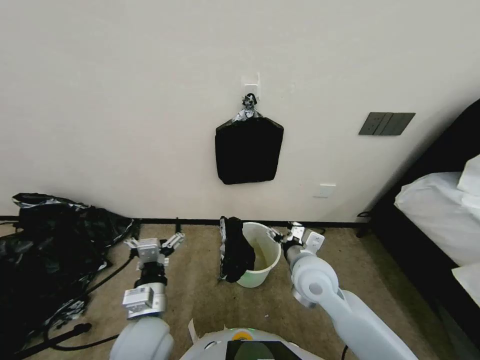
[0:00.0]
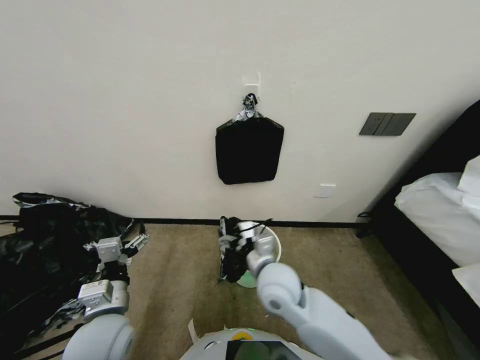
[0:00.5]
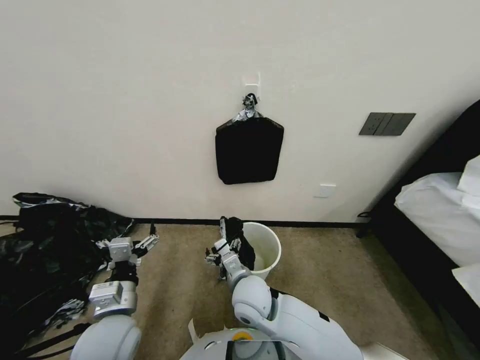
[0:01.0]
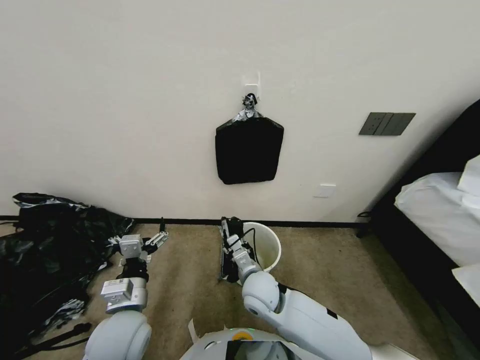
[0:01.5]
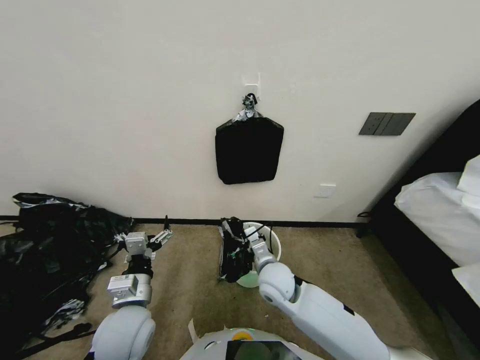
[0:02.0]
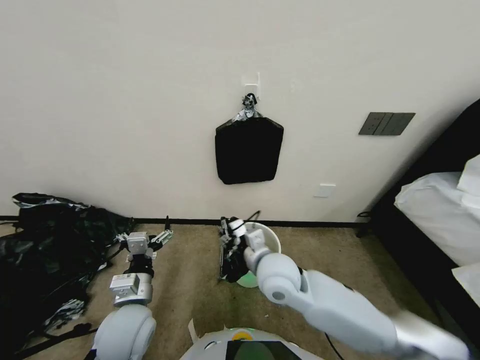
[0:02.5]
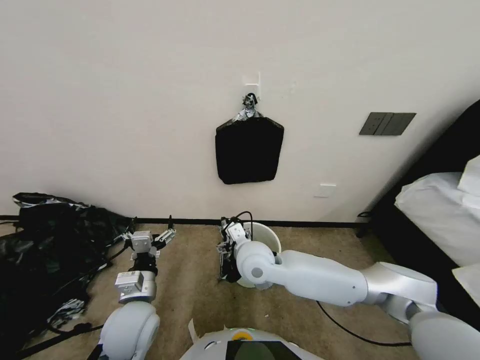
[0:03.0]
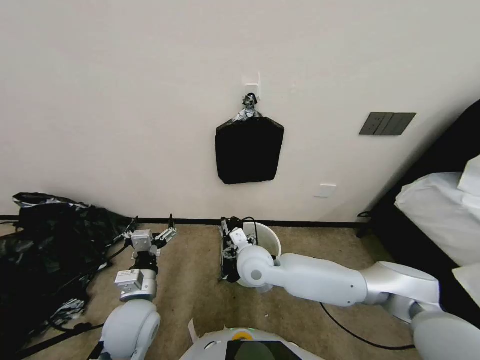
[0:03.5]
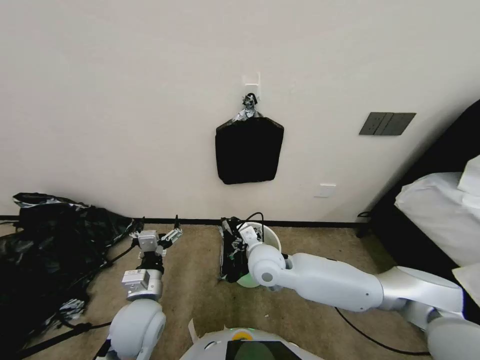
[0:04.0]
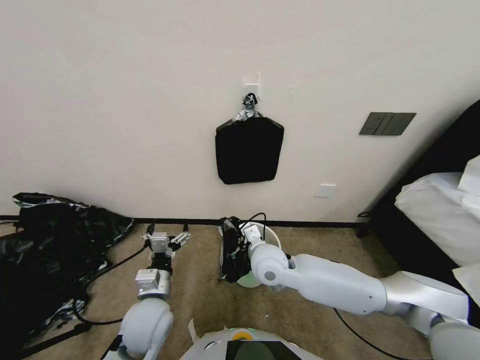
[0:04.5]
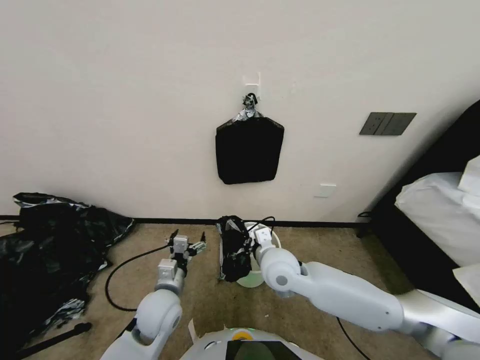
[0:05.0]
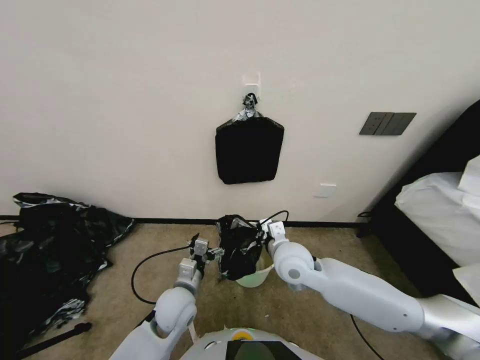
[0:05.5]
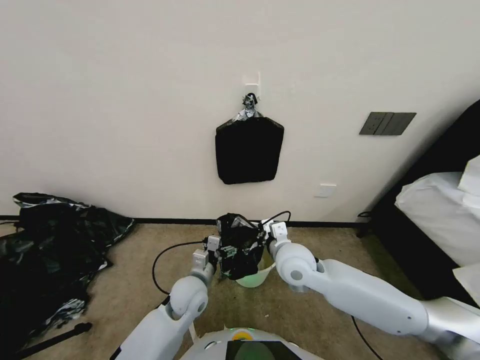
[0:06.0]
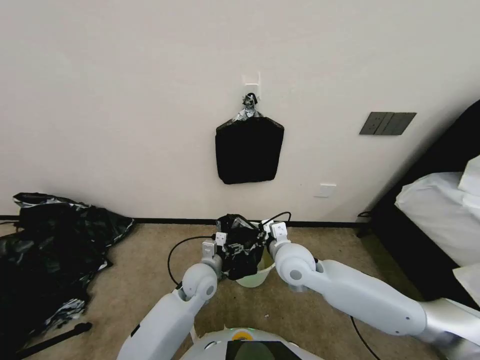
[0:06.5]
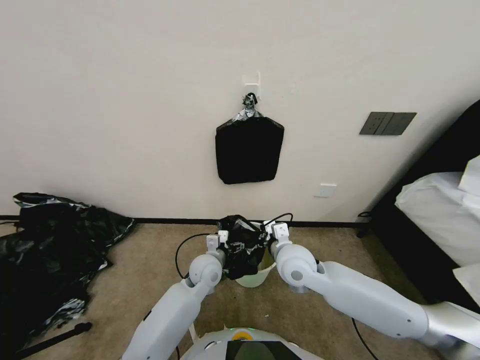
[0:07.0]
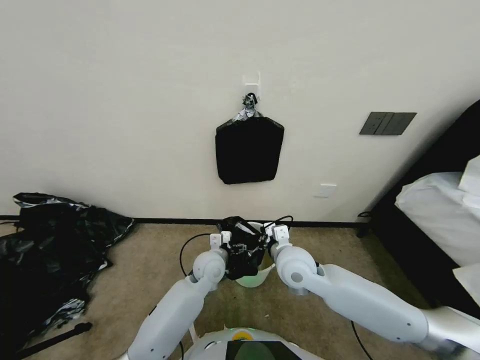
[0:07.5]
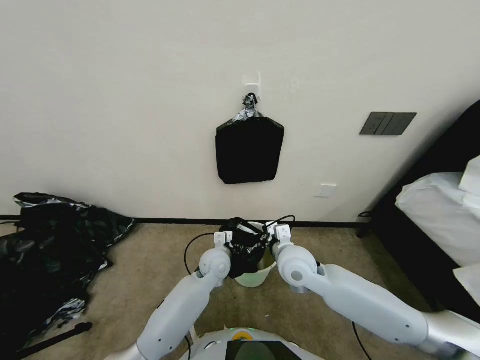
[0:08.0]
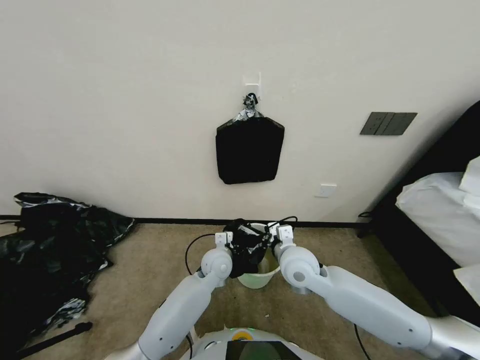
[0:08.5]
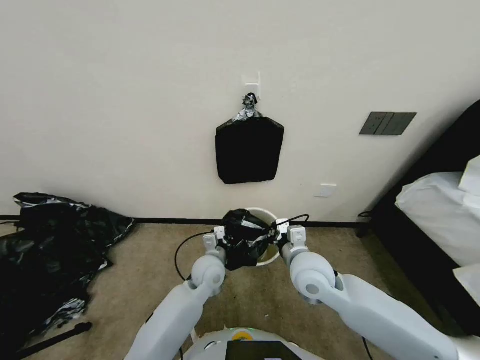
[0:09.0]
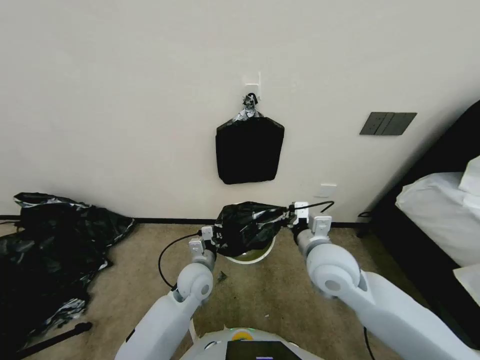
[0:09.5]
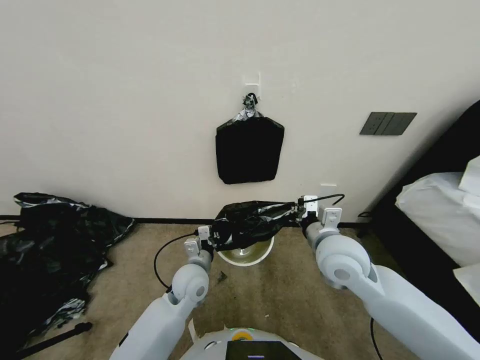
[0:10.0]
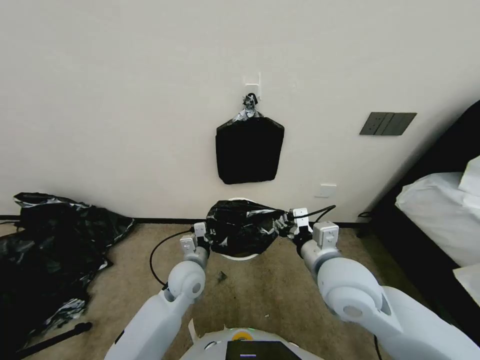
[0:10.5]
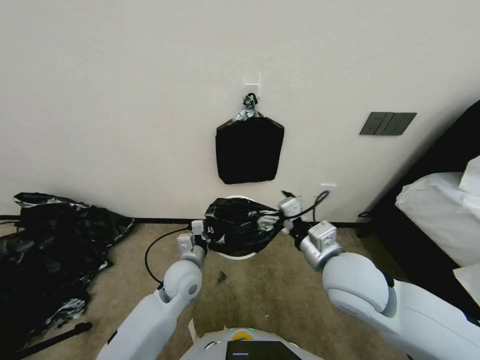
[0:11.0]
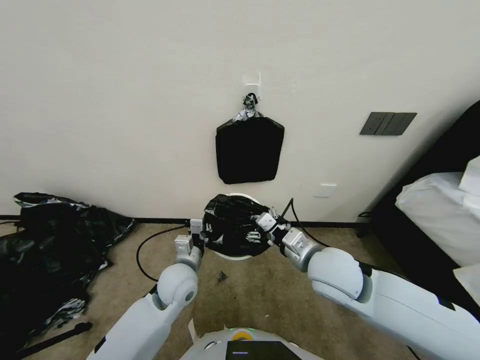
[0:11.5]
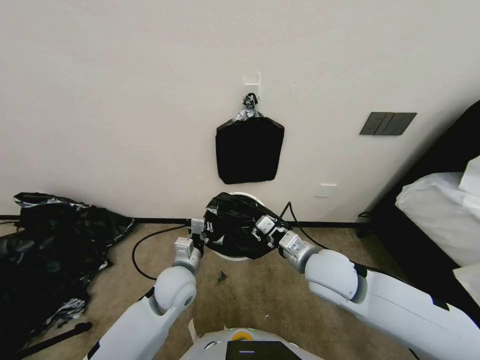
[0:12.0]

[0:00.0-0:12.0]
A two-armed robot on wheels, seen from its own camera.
Task of the whole recording: Place a trash bag onto the trash bin.
0:00.0 to 0:02.0: The right gripper heads to the left and downward, covering some 10 cm, and closes up. Meanwhile the left gripper heads to the left, covering about 5 cm.
0:02.0 to 0:04.0: The right gripper shifts roughly 5 cm upward, and opens.
0:04.0 to 0:06.0: The right gripper travels to the right by about 5 cm, and closes its fingers. Meanwhile the left gripper heads to the right, forward and downward, covering roughly 10 cm.
0:06.0 to 0:08.0: The left gripper heads forward and to the right, covering approximately 10 cm.
0:08.0 to 0:10.0: The right gripper shifts roughly 10 cm upward and to the right. Meanwhile the left gripper shifts about 10 cm backward and to the left, and closes.
0:10.0 to 0:12.0: The right gripper opens.

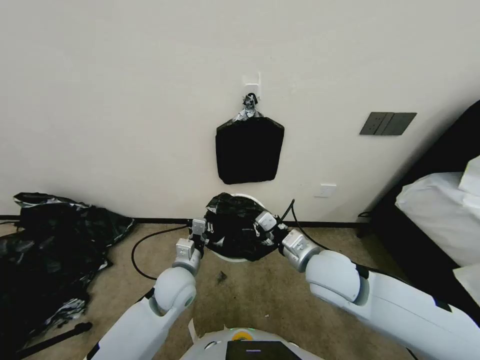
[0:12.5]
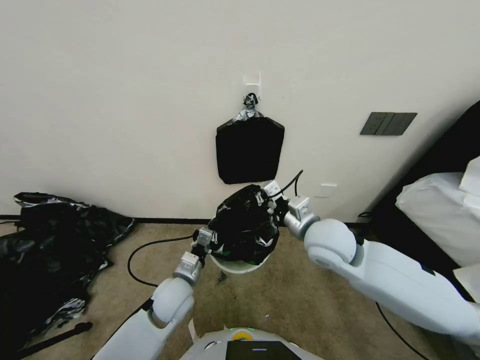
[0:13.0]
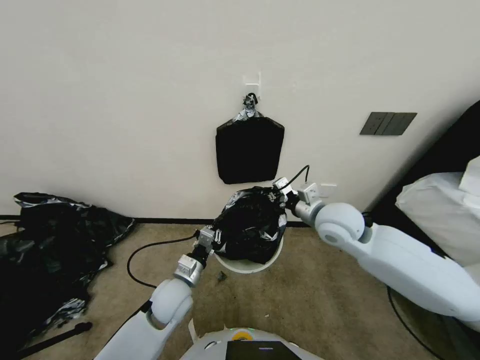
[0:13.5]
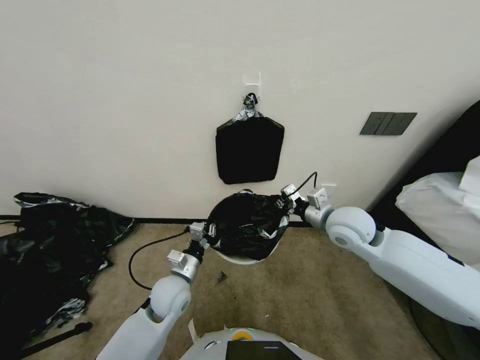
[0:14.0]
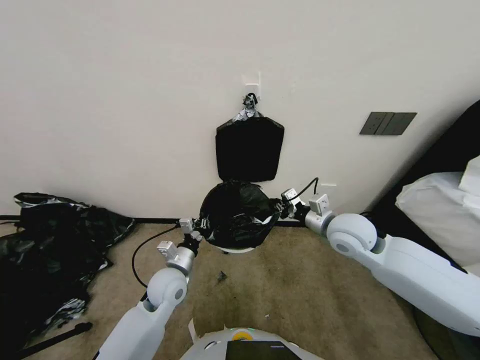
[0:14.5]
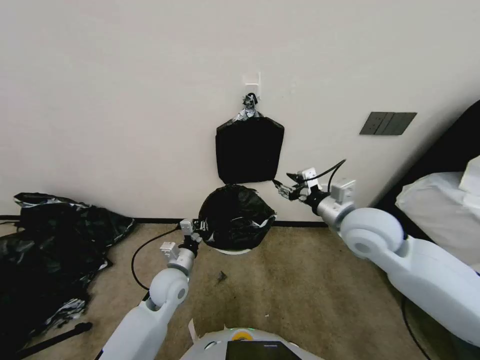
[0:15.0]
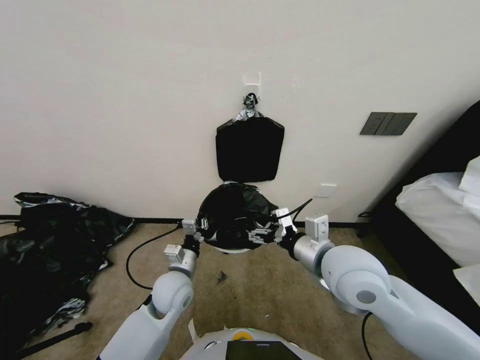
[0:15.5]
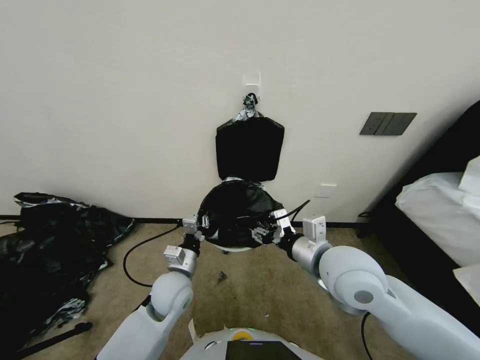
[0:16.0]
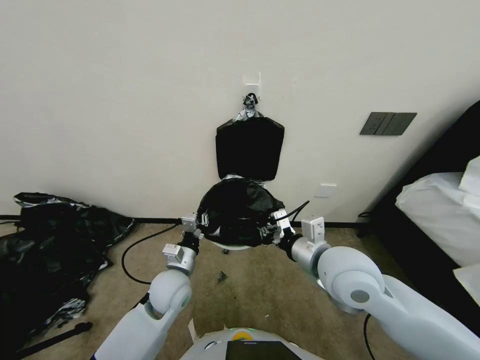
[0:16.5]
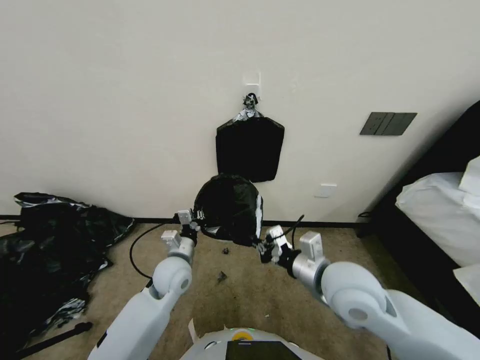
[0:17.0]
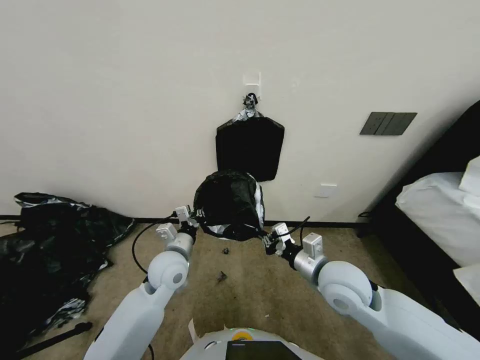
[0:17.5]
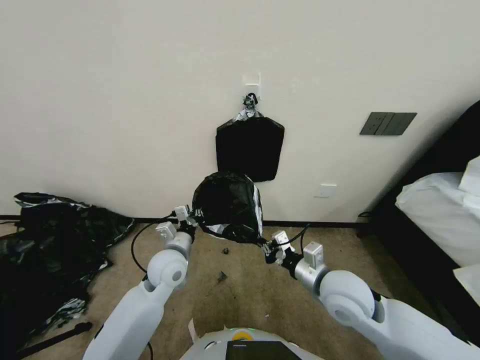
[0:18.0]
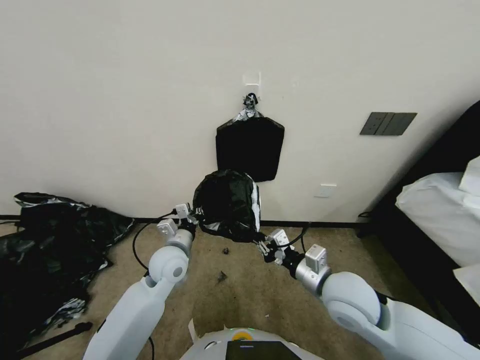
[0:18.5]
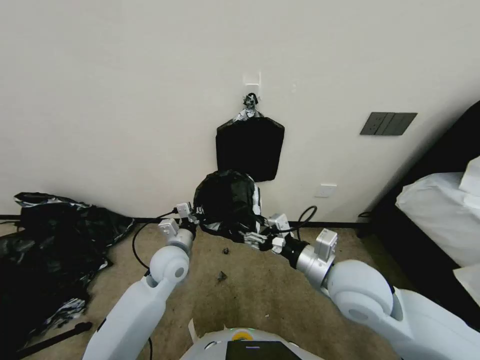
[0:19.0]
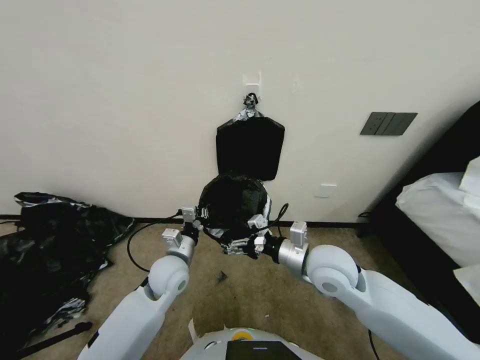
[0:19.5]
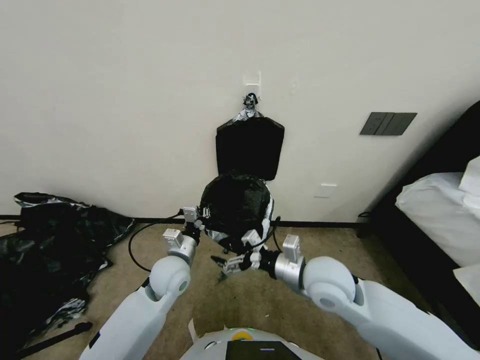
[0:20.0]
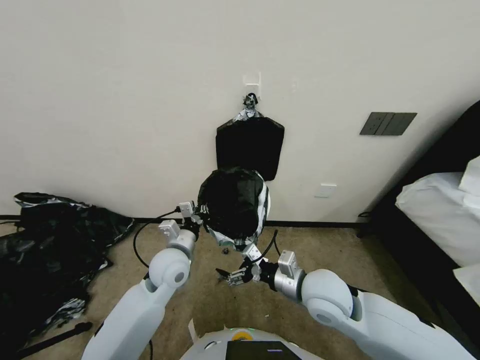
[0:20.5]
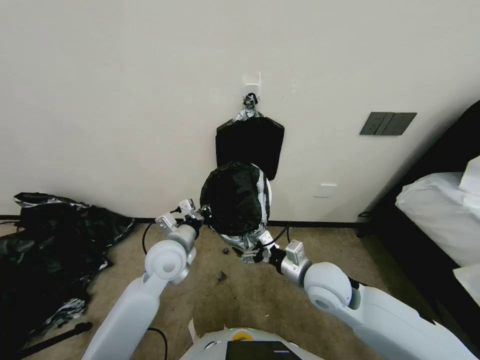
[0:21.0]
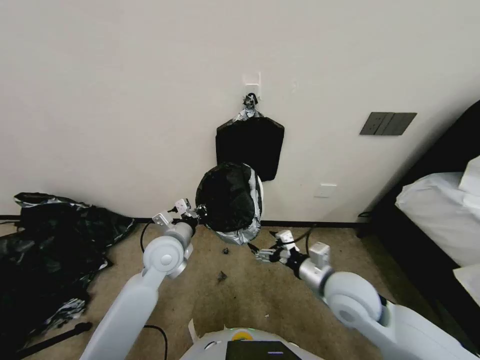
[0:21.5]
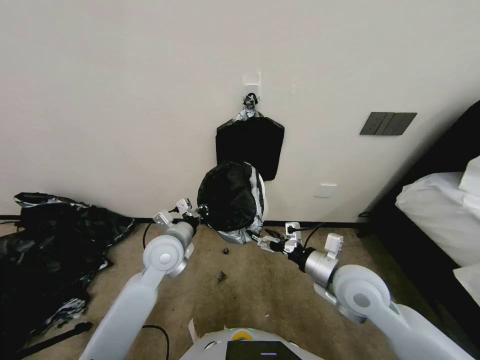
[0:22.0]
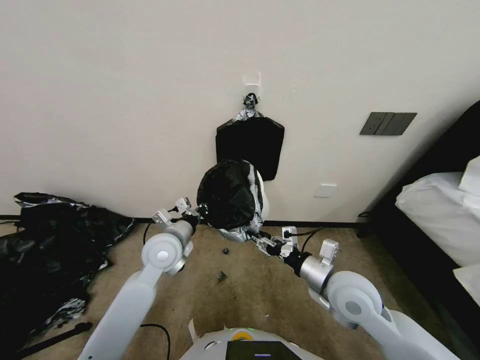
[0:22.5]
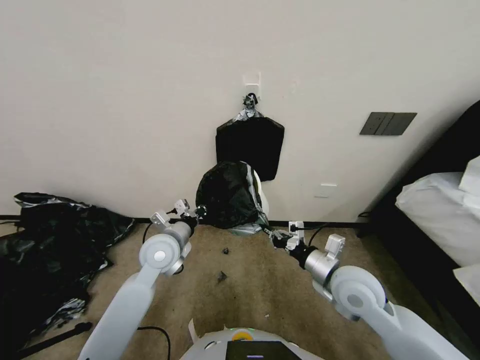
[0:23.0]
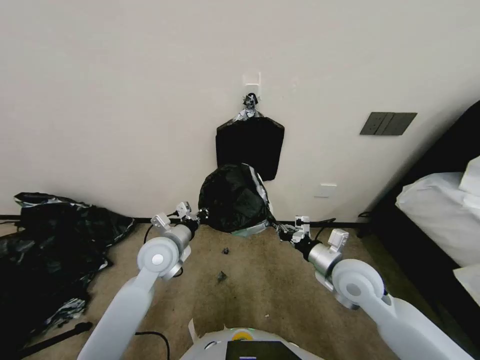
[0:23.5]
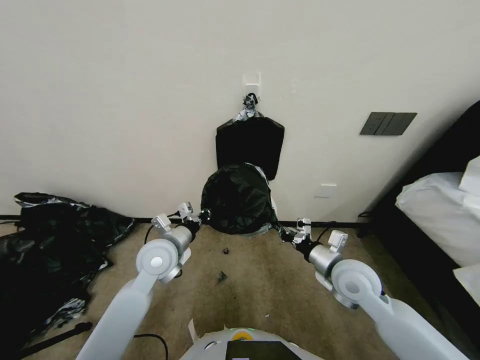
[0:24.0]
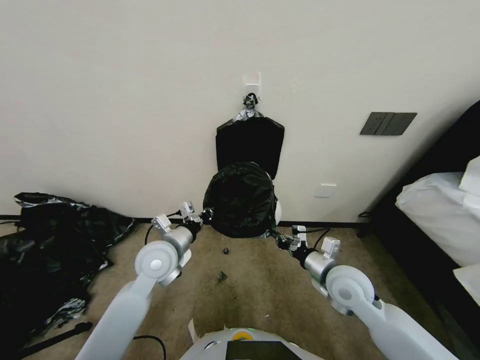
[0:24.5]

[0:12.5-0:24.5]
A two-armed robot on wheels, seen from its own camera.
Task of the whole recording: Place a trash bag onto the trash bin.
0:12.5 to 0:14.5: The right gripper shifts approximately 10 cm forward and to the right.
0:14.5 to 0:16.5: The right gripper heads backward and to the left, covering about 15 cm, and opens and closes again.
0:16.5 to 0:18.5: The right gripper is displaced downward by about 10 cm, while the left gripper goes roughly 5 cm forward.
0:18.5 to 0:20.5: The right gripper opens up.
0:20.5 to 0:22.5: The right gripper is displaced to the right by approximately 5 cm, and closes up.
0:22.5 to 0:24.5: The right gripper moves about 5 cm, and closes up.

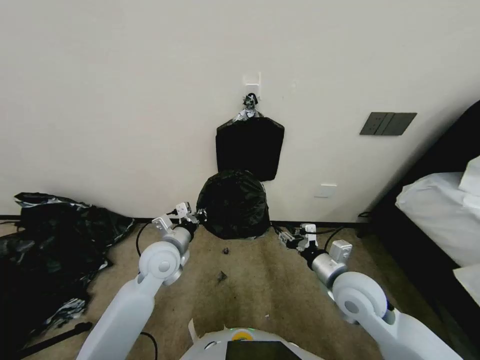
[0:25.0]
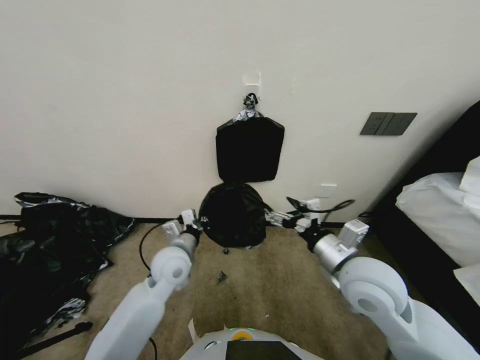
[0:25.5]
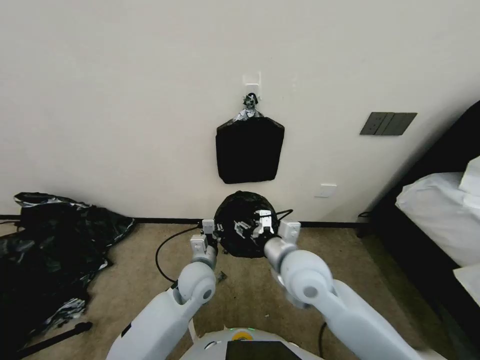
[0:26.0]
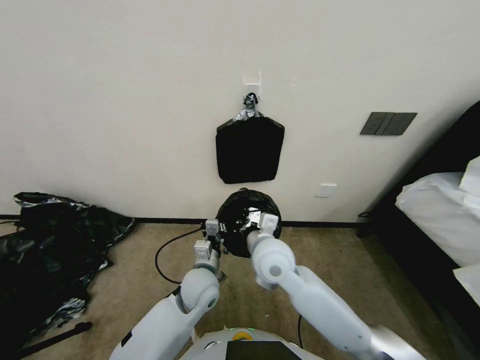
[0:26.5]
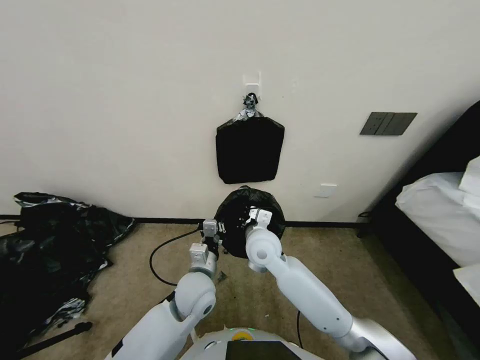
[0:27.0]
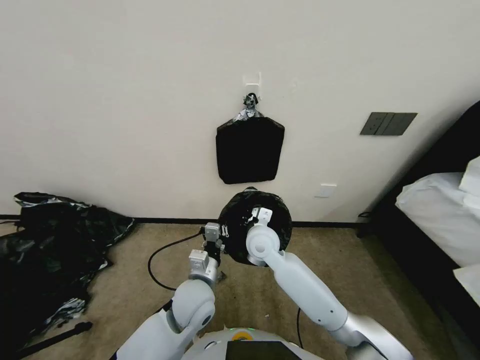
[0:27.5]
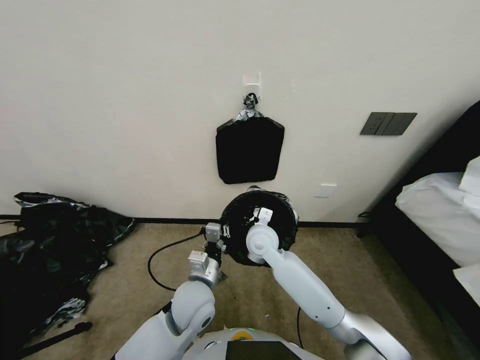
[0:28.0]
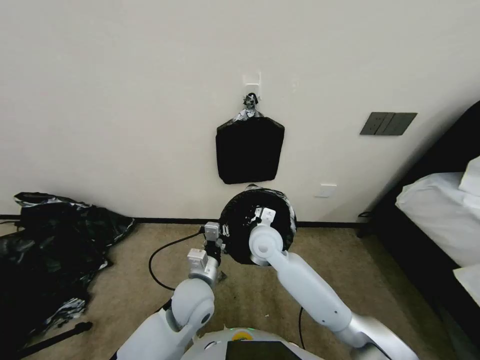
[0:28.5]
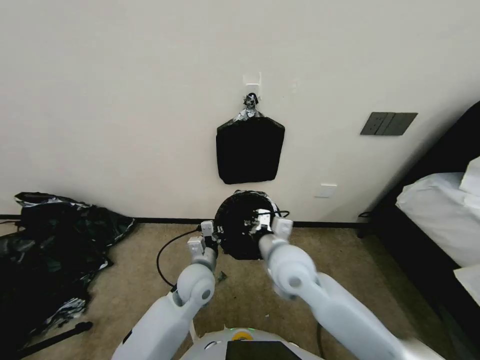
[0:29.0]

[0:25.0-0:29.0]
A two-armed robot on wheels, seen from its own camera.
Task of the whole recording: Place a trash bag onto the trash bin.
0:25.0 to 0:27.0: The left gripper is displaced to the right, downward and backward by approximately 15 cm; the right gripper shifts roughly 20 cm to the left and forward, and closes.
0:27.0 to 0:29.0: The right gripper ends up some 5 cm from where it was.
